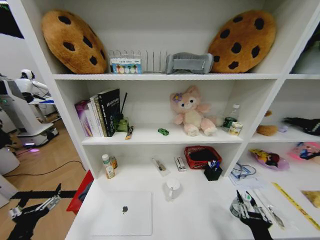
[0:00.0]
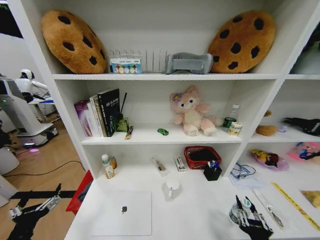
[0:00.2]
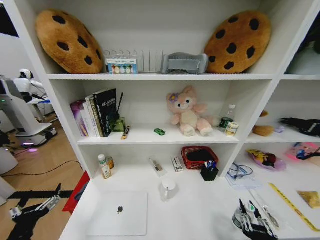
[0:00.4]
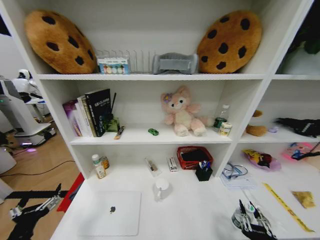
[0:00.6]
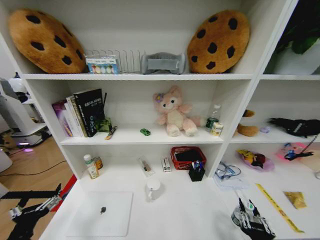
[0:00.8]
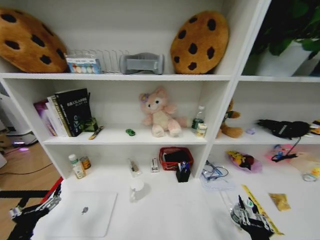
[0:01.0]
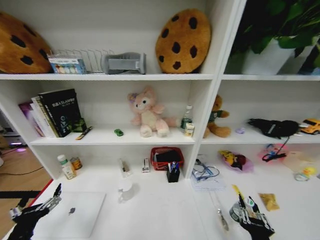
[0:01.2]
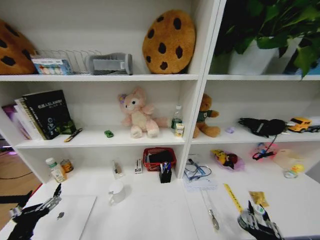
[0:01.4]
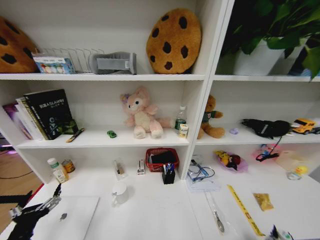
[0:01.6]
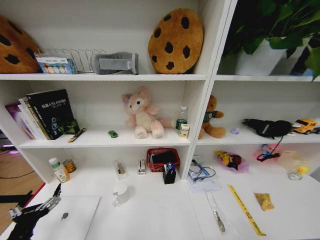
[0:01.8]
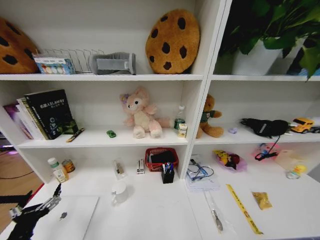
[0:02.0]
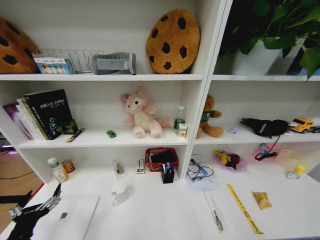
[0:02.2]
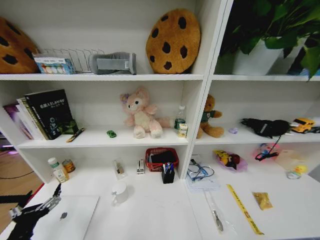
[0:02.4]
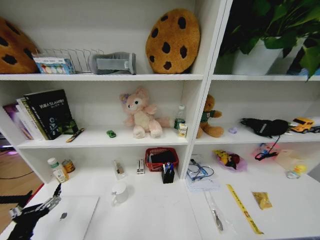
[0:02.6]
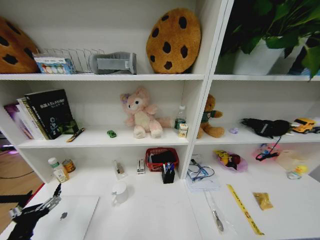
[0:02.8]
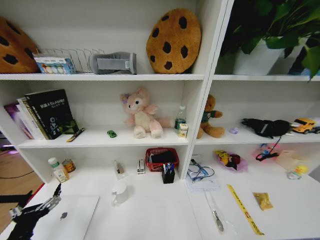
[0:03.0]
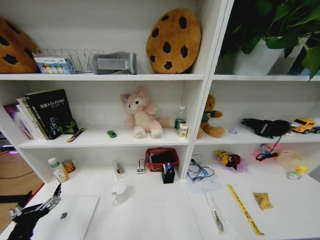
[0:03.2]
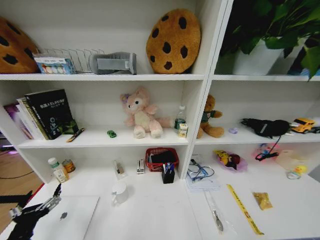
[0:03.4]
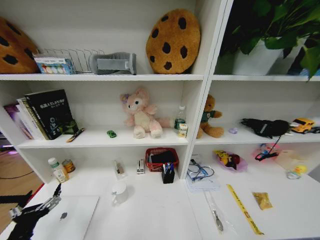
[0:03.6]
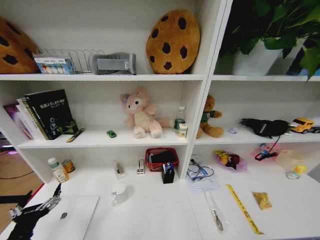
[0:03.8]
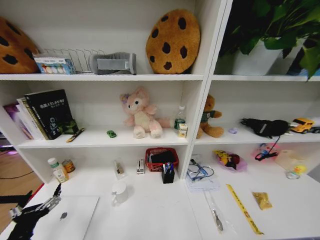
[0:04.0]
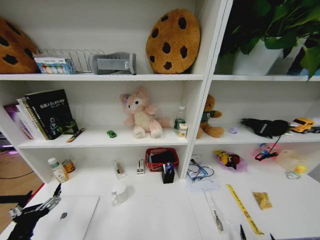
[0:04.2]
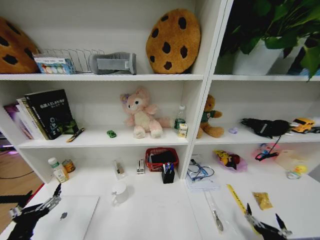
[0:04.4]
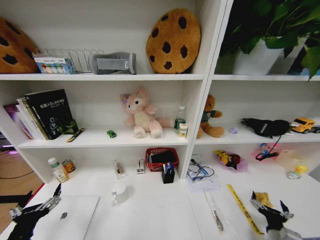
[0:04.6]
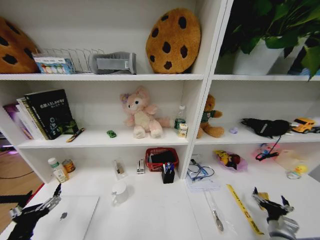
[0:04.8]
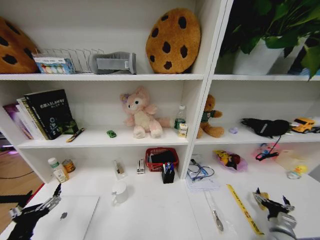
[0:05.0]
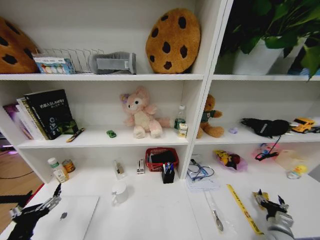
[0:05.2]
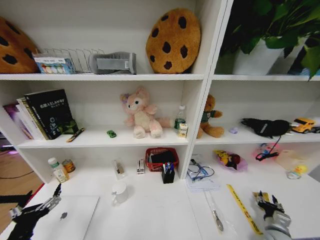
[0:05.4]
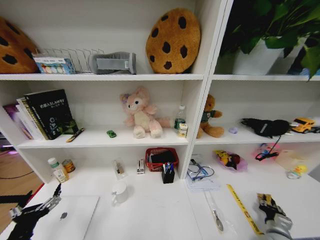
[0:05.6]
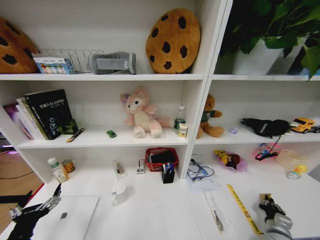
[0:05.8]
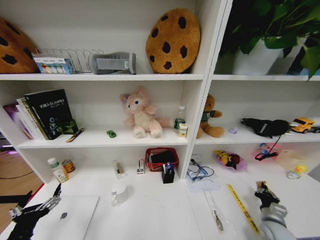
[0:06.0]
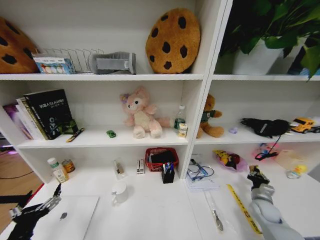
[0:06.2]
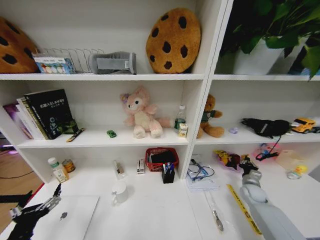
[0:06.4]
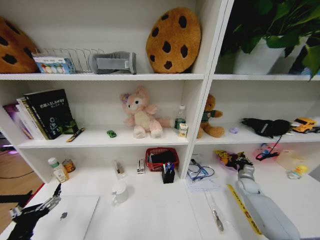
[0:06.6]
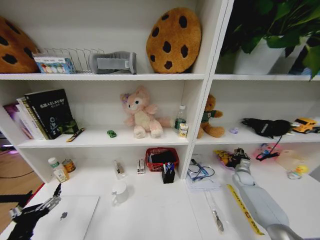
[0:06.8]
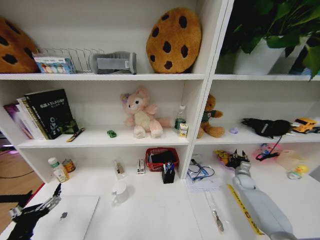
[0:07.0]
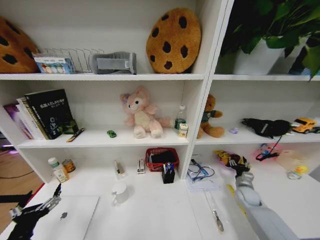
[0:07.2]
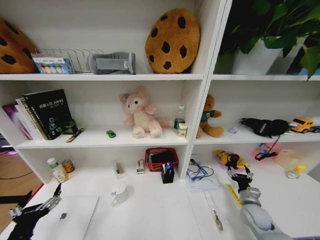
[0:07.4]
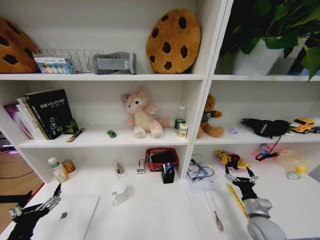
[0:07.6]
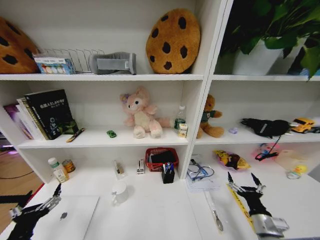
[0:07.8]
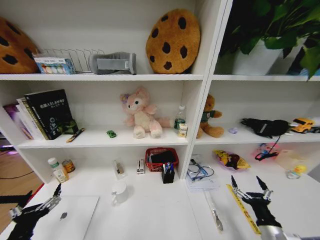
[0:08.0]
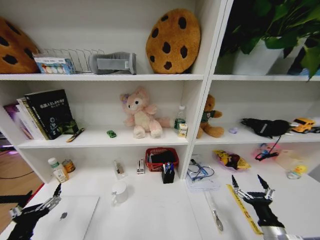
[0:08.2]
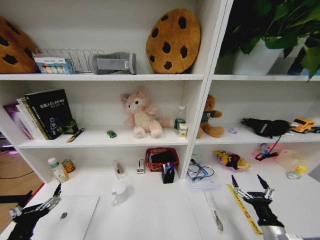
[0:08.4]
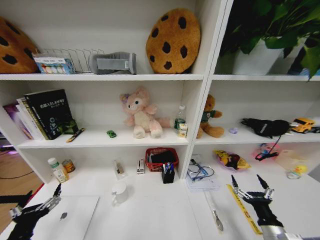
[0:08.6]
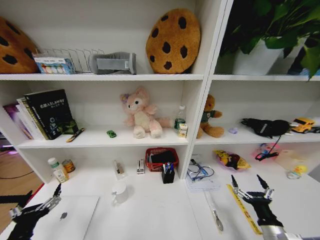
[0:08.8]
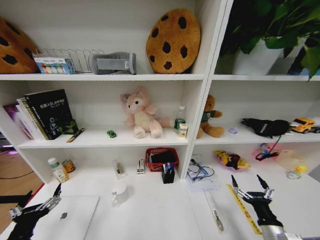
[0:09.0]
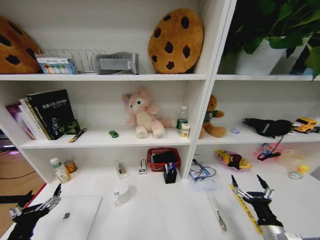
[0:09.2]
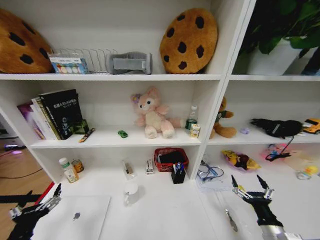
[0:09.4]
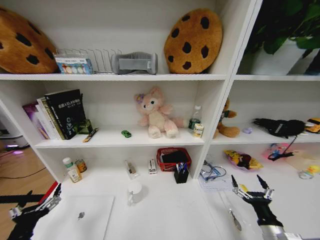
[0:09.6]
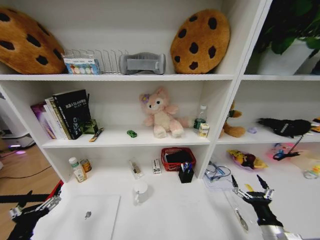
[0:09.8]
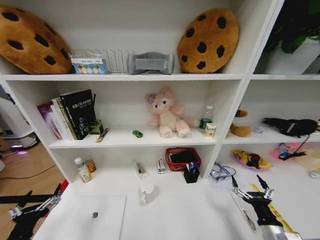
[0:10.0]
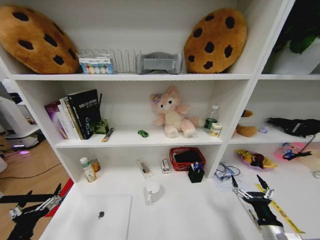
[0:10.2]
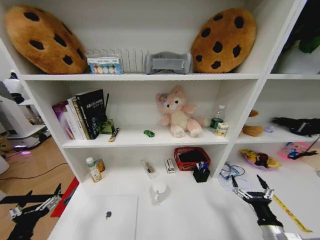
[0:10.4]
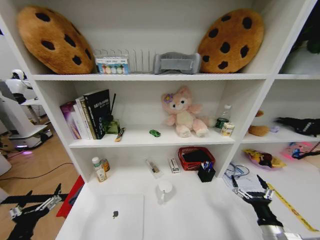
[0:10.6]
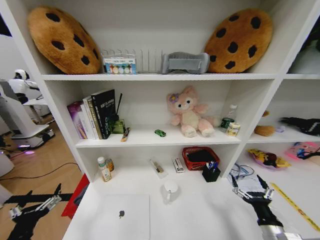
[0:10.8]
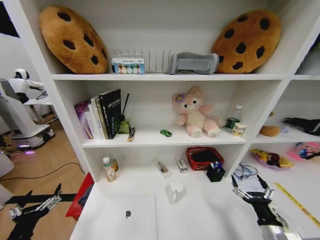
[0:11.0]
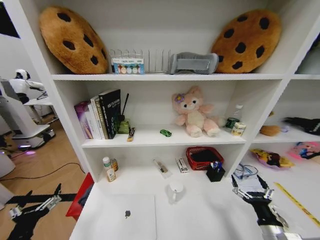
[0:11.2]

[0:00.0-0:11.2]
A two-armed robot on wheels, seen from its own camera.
Task of the whole recording: Organize the objects on the table.
0:00.0 to 0:01.6: The right gripper moves roughly 5 cm.
0:01.6 to 0:03.2: The right gripper moves downward, roughly 35 cm, and opens.
0:03.2 to 0:04.8: The right gripper shifts approximately 30 cm upward, forward and to the right.
0:04.8 to 0:06.4: The right gripper shifts some 15 cm forward, and closes its fingers.
0:06.4 to 0:08.0: The right gripper travels backward and to the left by approximately 20 cm, and opens its fingers.

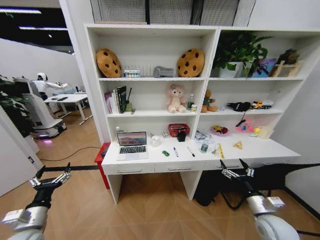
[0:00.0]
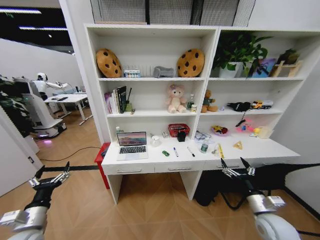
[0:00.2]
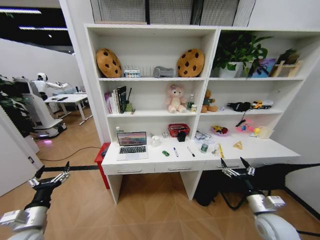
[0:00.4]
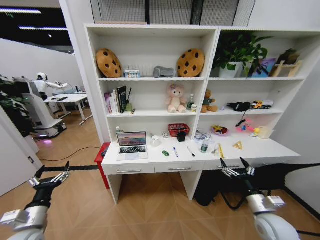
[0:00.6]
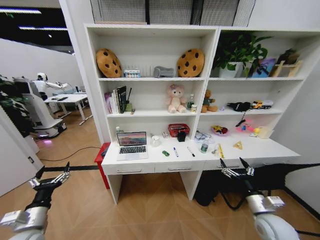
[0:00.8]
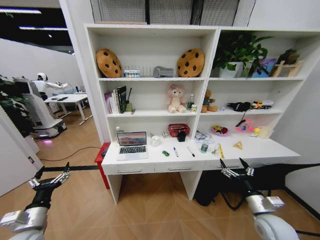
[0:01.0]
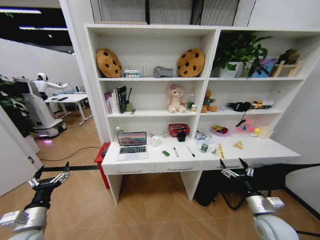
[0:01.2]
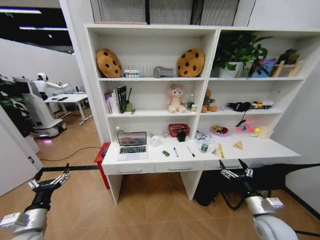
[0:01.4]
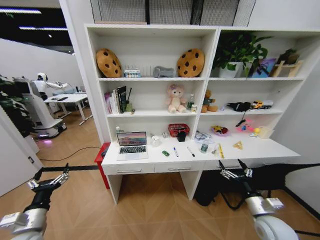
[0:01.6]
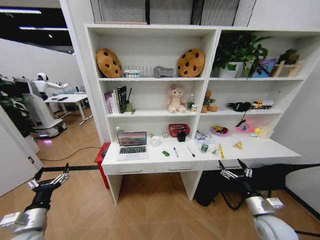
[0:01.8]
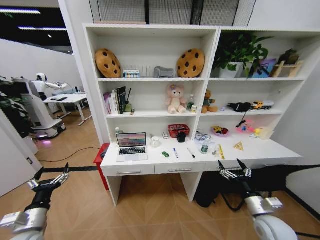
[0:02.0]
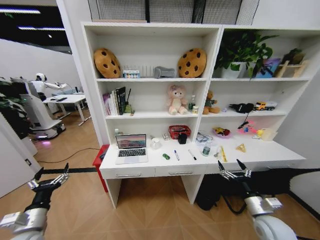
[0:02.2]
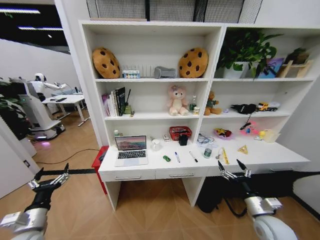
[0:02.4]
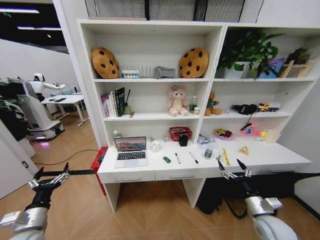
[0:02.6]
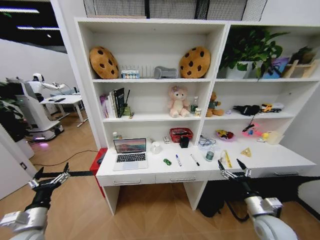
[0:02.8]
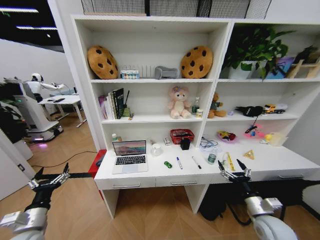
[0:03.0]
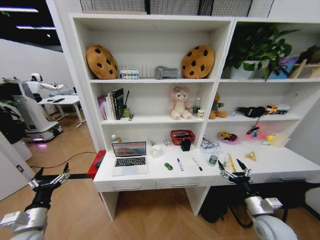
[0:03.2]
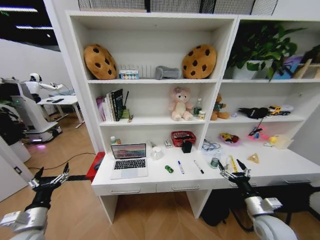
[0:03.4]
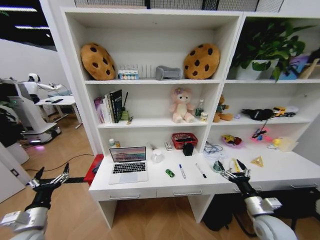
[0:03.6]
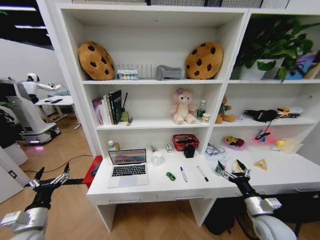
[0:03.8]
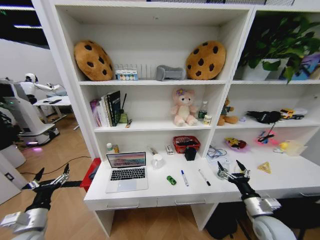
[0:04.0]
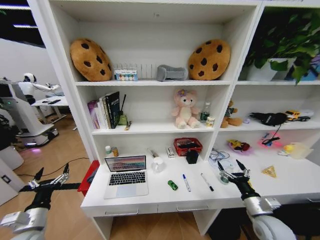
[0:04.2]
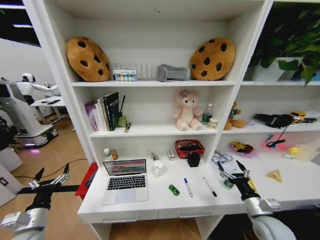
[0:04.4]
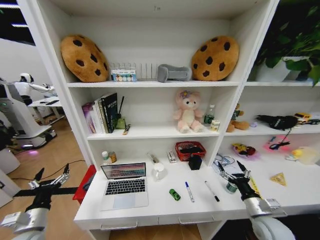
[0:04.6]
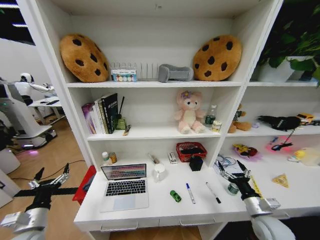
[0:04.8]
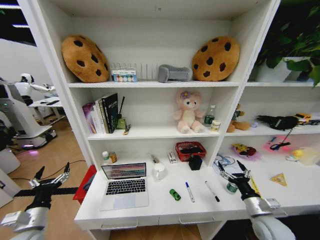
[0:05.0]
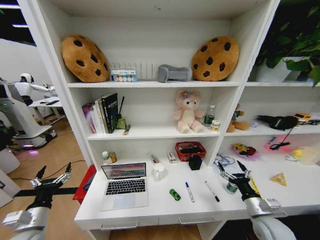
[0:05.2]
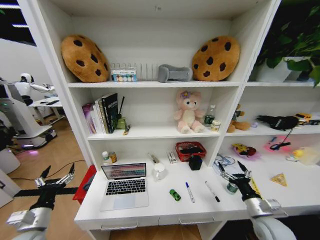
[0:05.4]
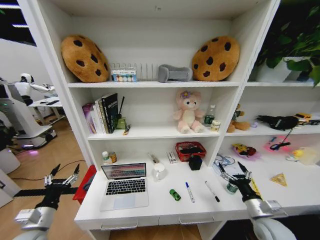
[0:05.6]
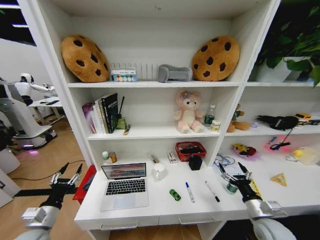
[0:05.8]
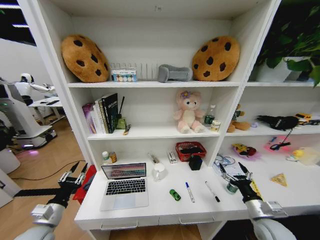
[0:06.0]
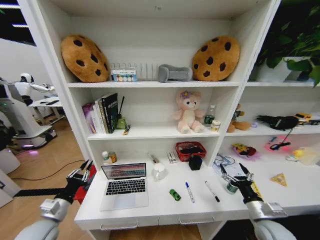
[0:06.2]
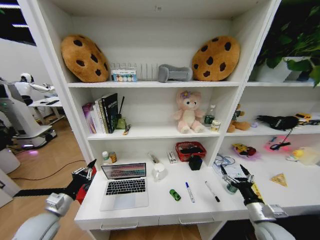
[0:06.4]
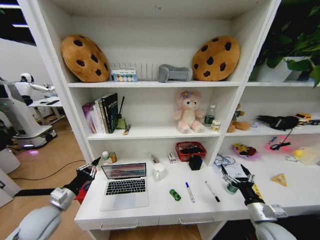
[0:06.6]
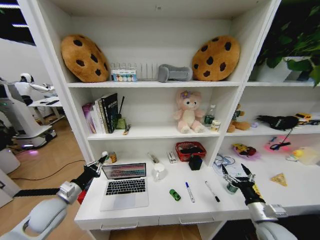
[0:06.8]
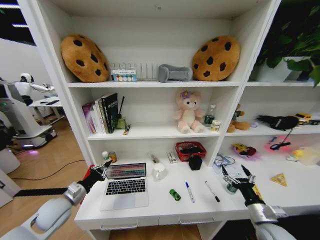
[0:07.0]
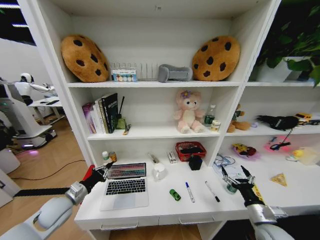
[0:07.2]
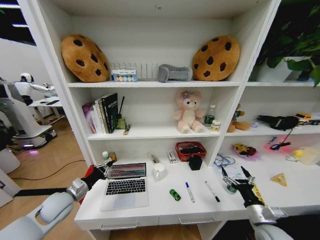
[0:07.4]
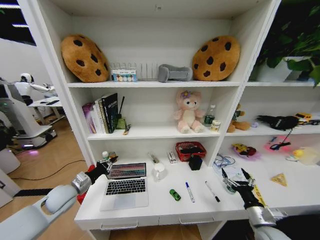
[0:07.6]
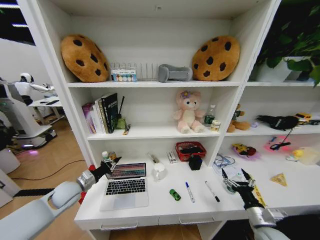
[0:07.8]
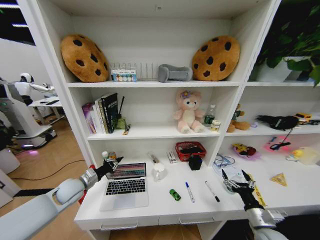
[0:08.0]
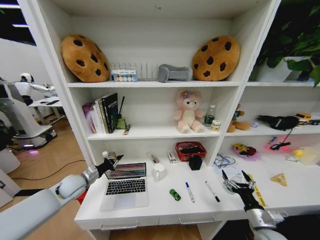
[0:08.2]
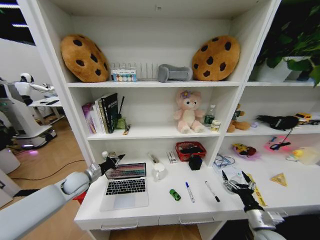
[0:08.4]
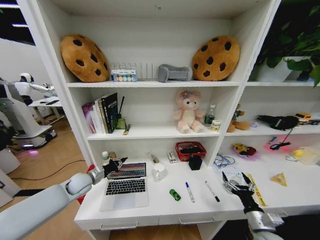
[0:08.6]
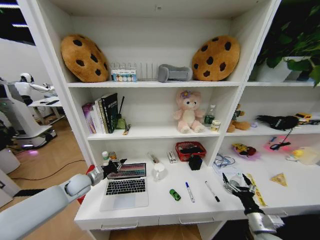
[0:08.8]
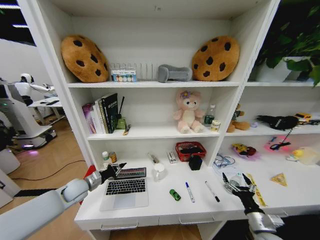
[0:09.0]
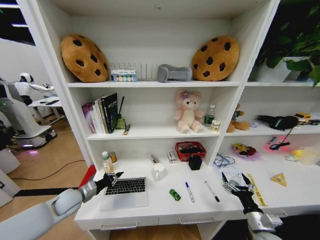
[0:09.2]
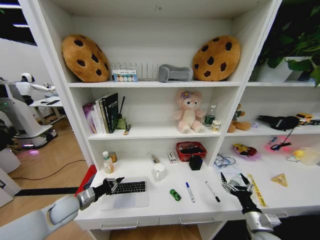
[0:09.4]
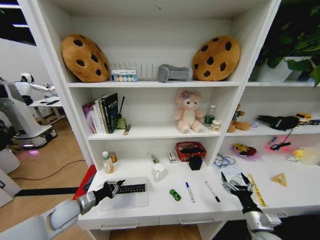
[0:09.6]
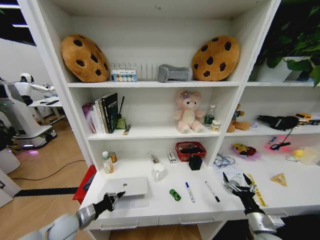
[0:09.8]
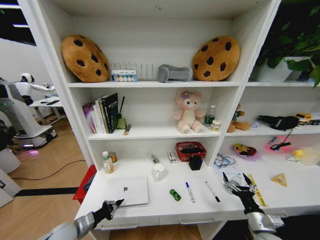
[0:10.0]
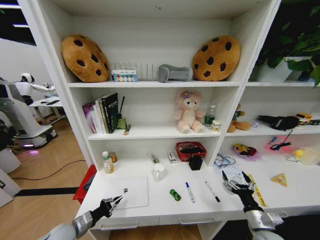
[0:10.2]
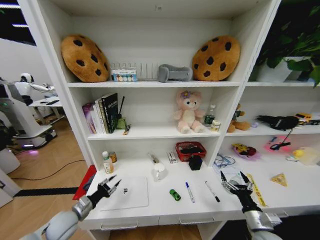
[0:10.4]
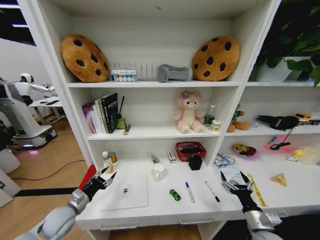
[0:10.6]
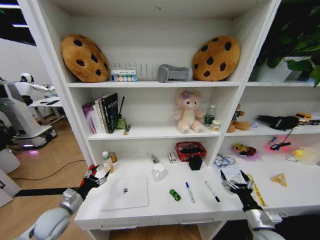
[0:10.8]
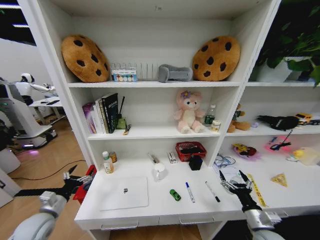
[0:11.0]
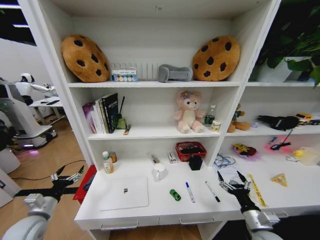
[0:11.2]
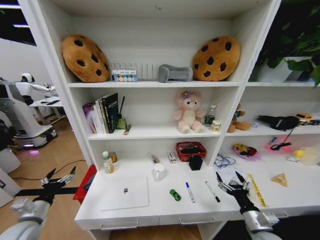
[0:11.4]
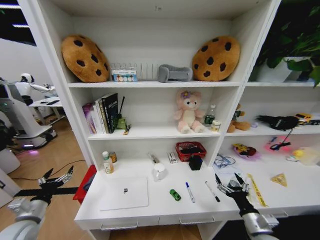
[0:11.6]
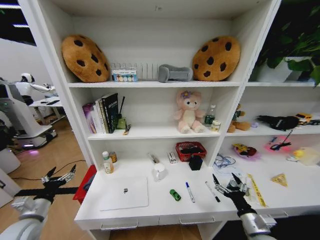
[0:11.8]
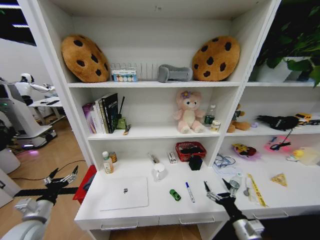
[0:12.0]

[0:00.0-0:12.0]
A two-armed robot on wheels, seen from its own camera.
Task of the whole recording: Organize the objects on the table.
0:04.4 to 0:06.0: The left gripper closes its fingers.
0:06.0 to 0:07.6: The left gripper heads forward, covering roughly 10 cm, and closes up.
0:07.6 to 0:09.0: The left gripper changes place by approximately 5 cm.
0:09.0 to 0:10.4: The left gripper shifts some 10 cm backward.
0:10.4 to 0:12.0: The right gripper heads to the left, covering approximately 5 cm, while the left gripper shifts some 10 cm to the left and upward, and opens.
